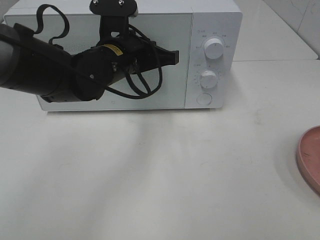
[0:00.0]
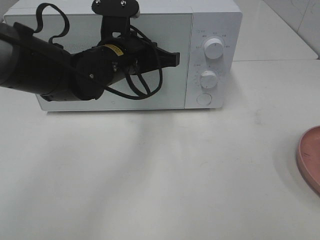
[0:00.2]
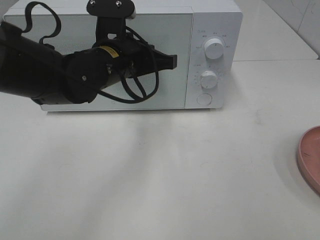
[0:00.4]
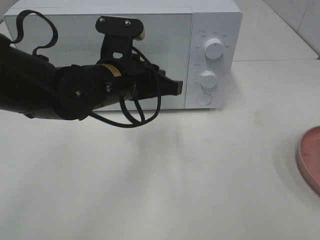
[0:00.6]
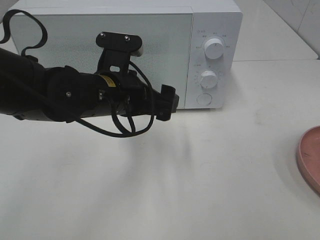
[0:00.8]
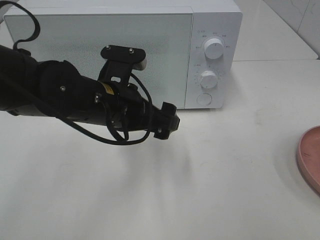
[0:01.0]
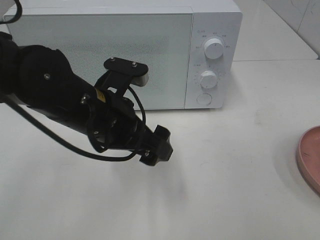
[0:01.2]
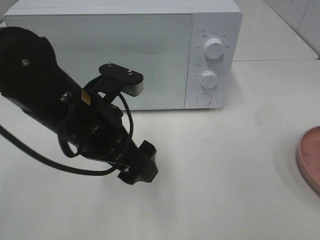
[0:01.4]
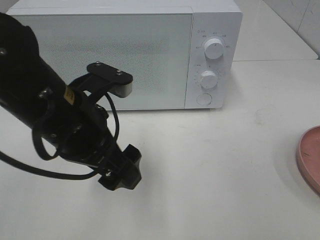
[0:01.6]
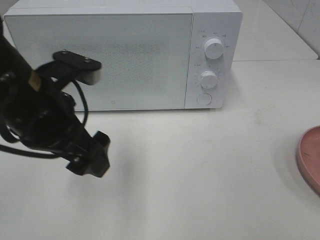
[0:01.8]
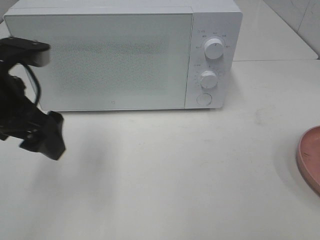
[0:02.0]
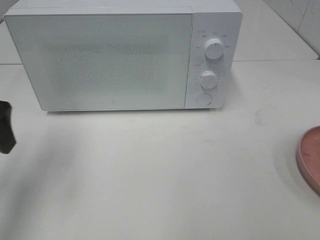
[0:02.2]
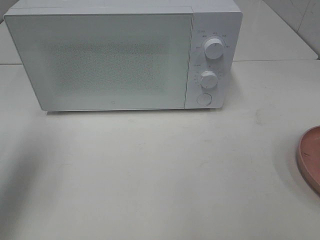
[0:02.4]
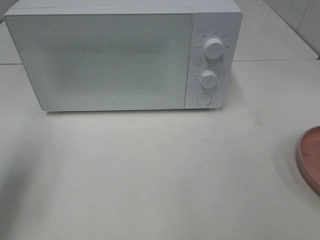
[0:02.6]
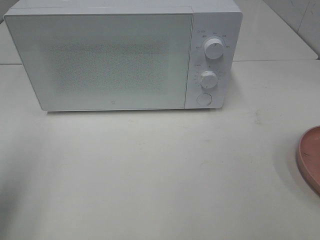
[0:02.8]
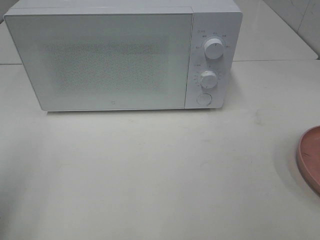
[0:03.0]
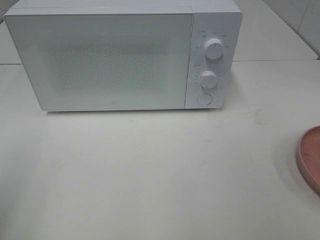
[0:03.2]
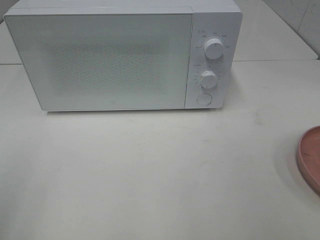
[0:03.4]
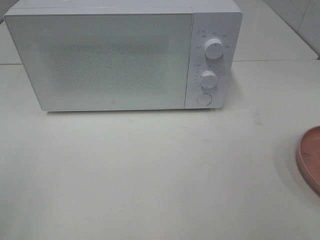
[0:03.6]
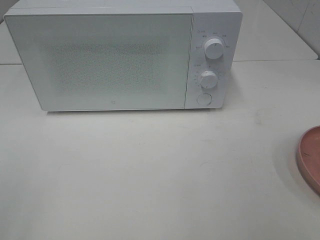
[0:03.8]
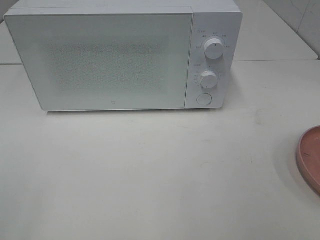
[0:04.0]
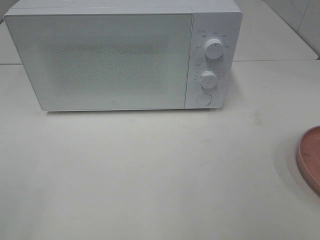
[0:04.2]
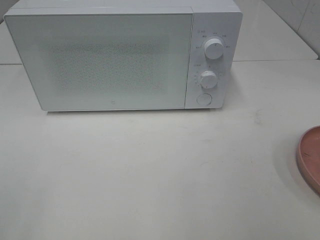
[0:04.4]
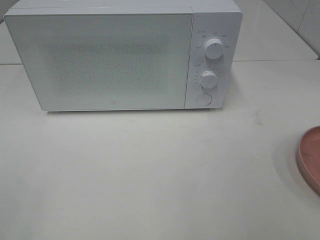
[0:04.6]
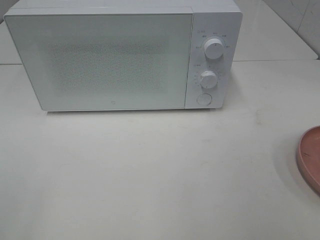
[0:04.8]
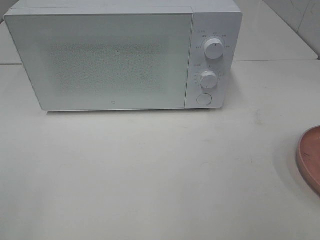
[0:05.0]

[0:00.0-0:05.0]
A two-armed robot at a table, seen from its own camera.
Task of the whole recording: Heat the burger.
0:00.0 to 0:01.6: The left gripper goes about 15 cm backward, and opens.
0:01.6 to 0:03.4: The left gripper moves to the left and backward, about 25 cm.

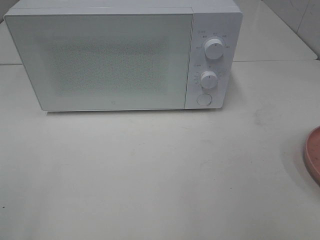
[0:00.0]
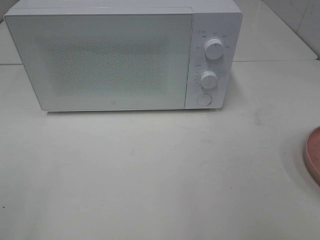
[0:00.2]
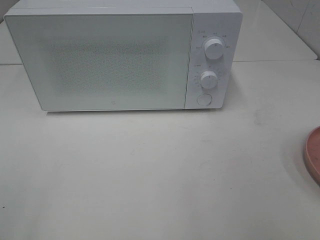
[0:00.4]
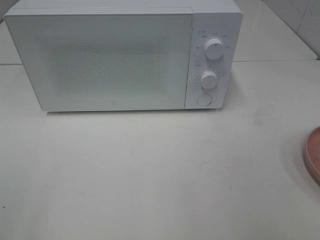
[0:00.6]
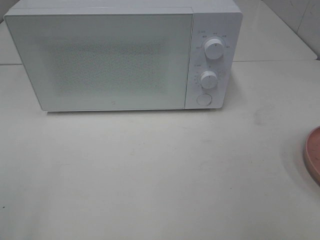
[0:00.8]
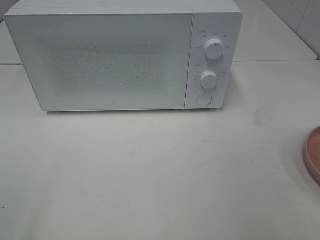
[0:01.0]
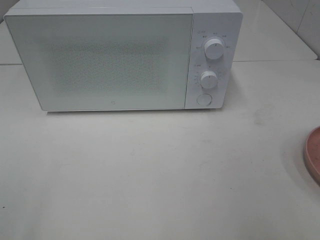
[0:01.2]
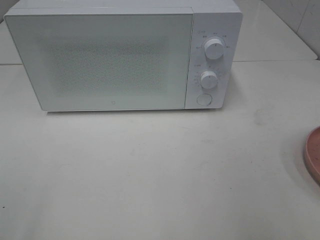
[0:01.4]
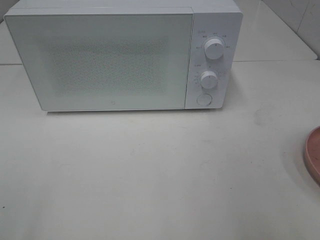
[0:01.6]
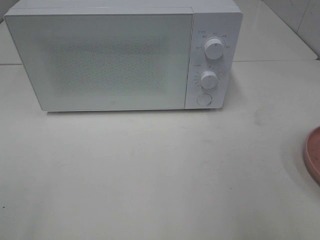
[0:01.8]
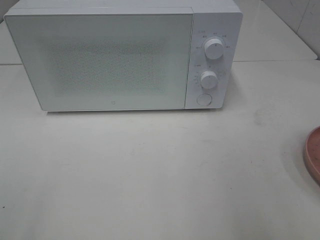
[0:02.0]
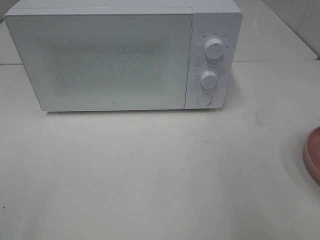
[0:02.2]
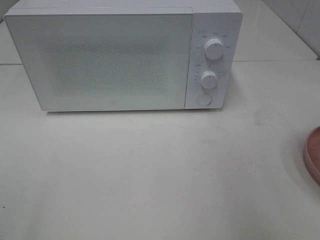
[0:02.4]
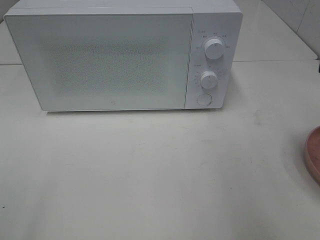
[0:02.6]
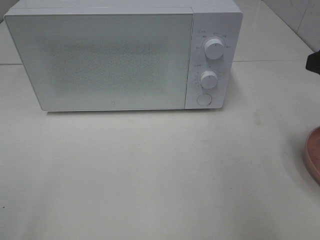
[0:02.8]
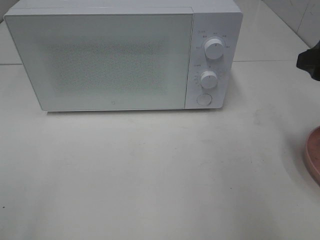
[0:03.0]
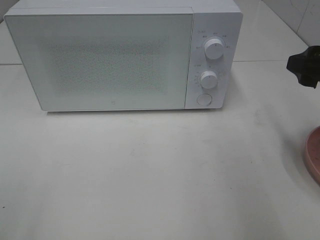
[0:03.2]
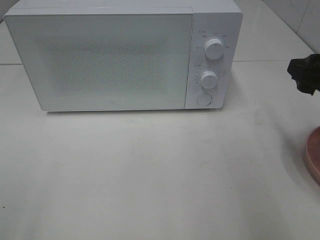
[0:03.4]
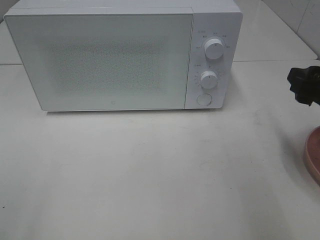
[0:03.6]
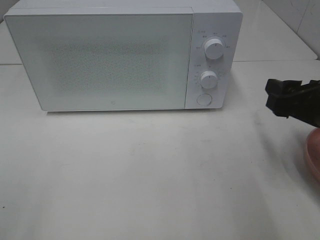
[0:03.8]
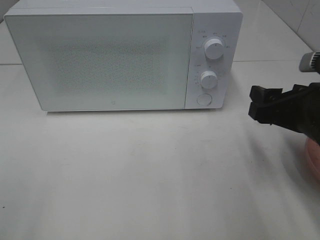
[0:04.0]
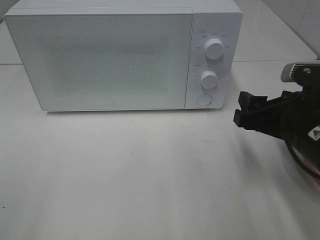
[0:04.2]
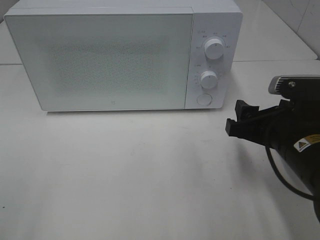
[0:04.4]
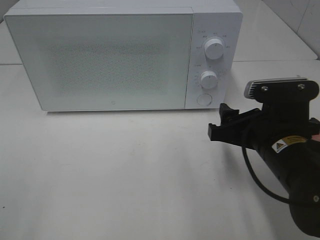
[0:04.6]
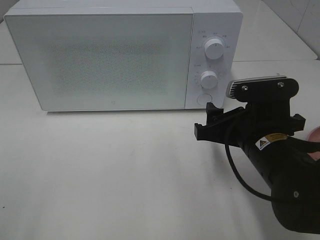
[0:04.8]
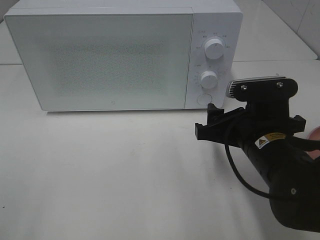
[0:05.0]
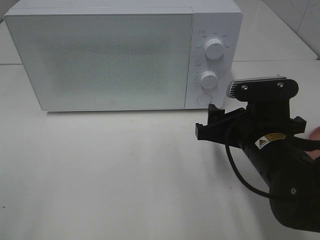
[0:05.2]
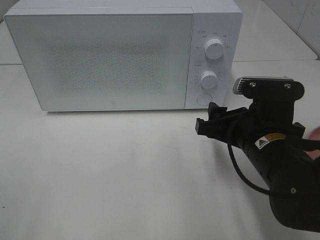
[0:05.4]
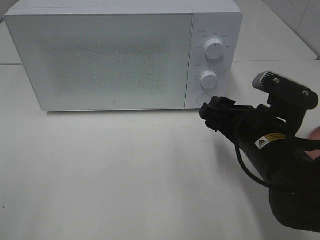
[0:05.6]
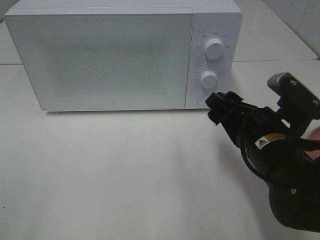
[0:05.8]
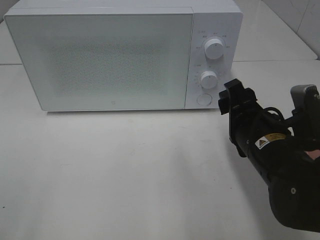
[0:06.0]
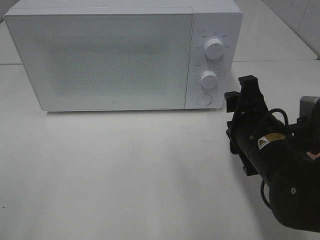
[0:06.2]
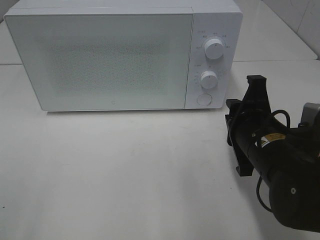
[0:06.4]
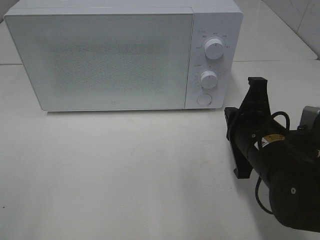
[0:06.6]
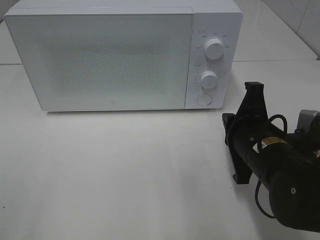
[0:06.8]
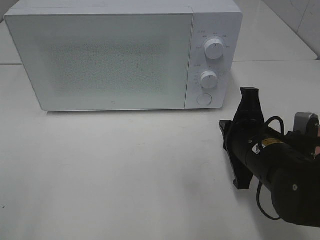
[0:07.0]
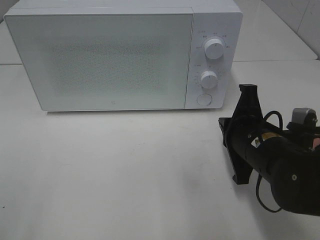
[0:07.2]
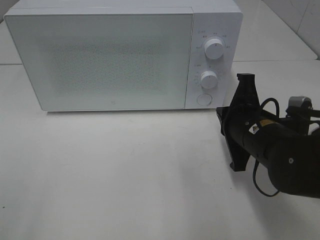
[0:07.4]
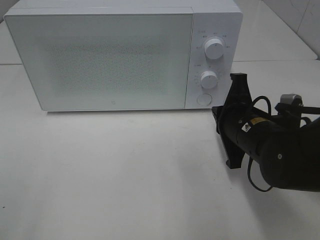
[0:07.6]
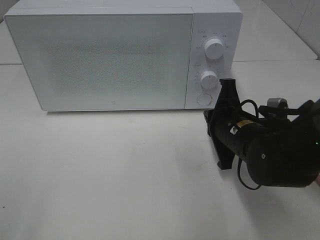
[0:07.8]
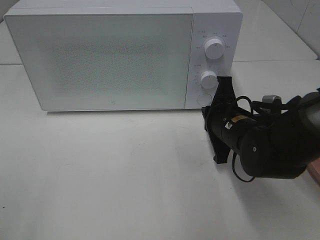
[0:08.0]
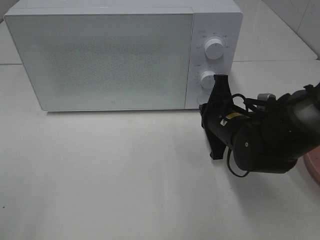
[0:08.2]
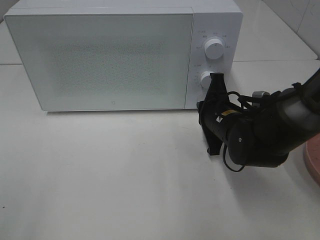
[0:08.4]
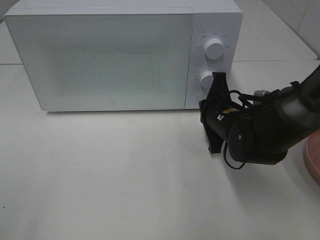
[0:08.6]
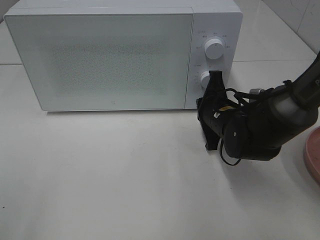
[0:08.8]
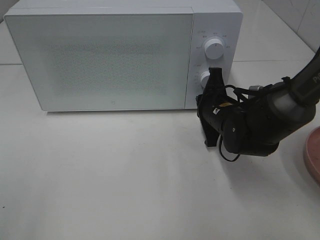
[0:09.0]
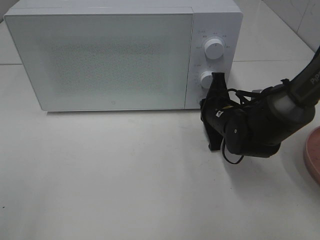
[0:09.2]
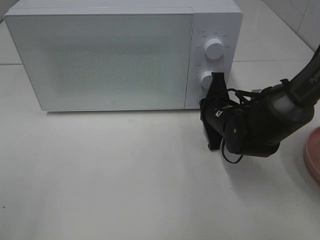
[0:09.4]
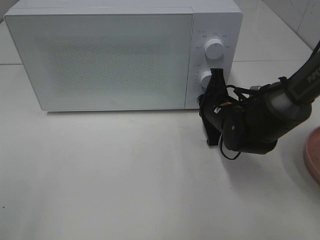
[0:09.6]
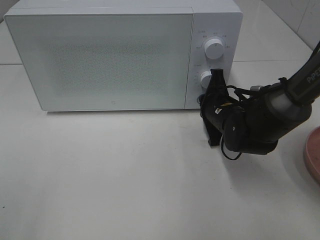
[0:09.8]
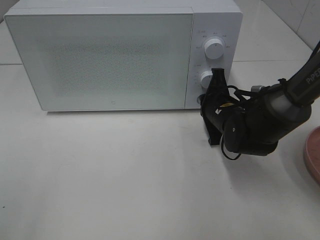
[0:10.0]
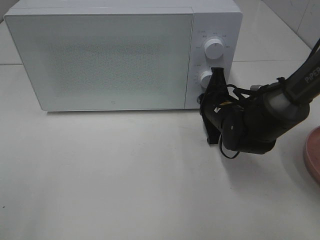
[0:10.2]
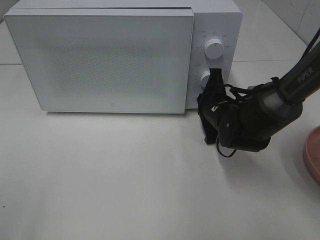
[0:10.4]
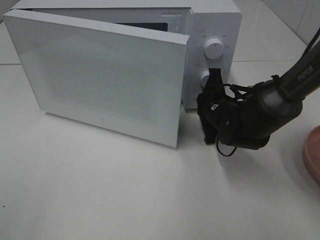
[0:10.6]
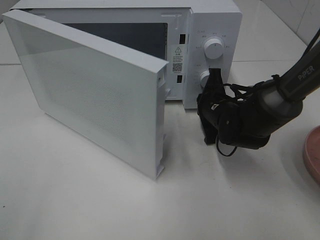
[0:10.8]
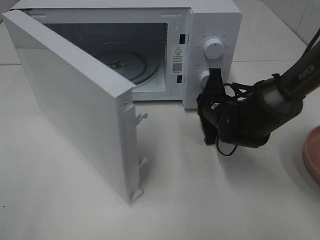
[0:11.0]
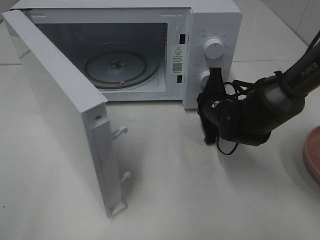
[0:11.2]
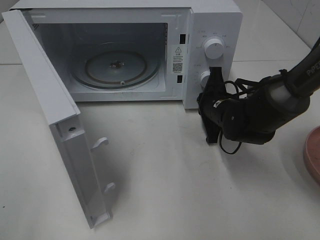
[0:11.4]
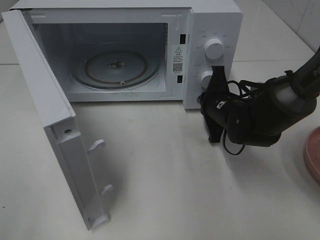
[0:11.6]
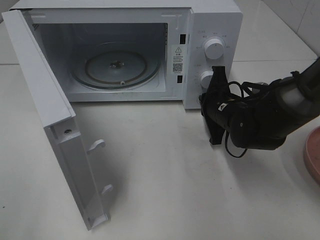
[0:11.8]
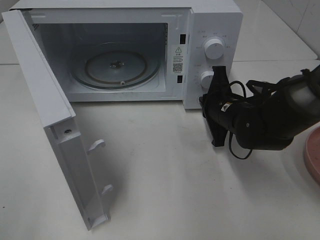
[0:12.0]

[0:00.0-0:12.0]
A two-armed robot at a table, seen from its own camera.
Task of the whole recording: Heat the burger.
0:01.6 to 0:03.0: The right gripper is displaced forward by roughly 15 cm.
0:03.0 to 0:04.4: The right gripper goes roughly 15 cm downward and to the left.
0:06.0 to 0:07.6: The right gripper closes its fingers.
0:07.6 to 0:09.0: The right gripper is displaced forward by some 10 cm.
0:09.0 to 0:10.4: The grippers make only small movements.

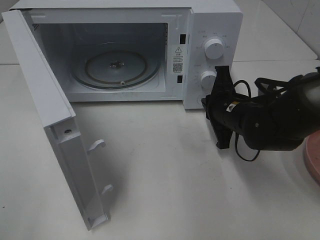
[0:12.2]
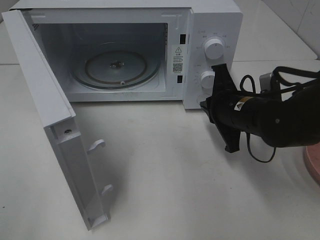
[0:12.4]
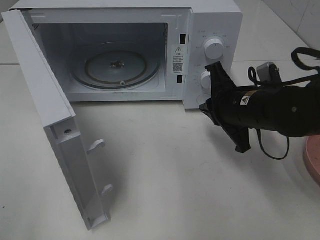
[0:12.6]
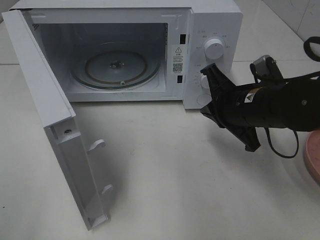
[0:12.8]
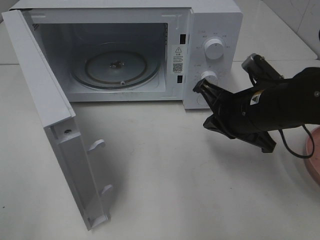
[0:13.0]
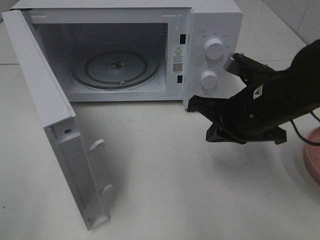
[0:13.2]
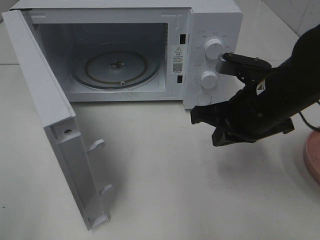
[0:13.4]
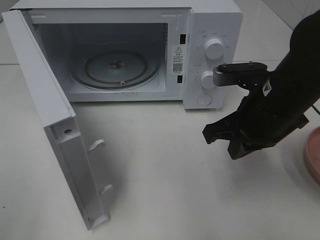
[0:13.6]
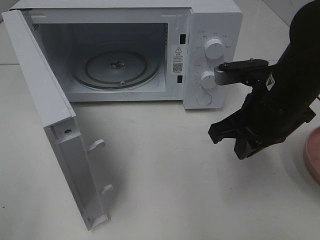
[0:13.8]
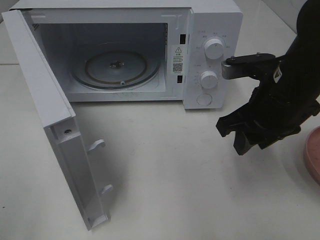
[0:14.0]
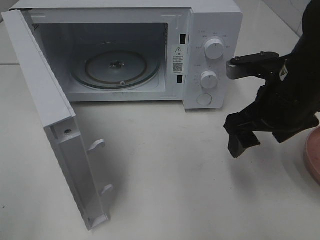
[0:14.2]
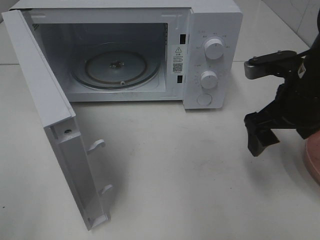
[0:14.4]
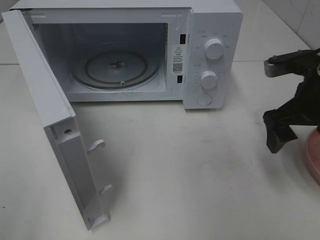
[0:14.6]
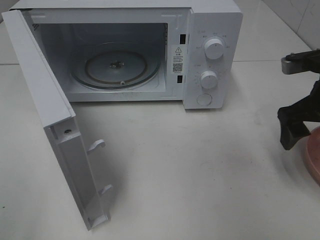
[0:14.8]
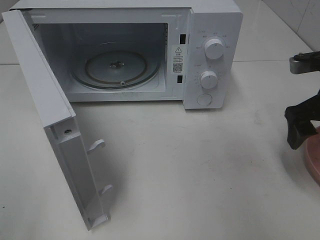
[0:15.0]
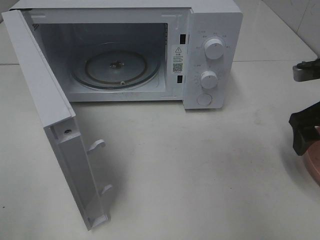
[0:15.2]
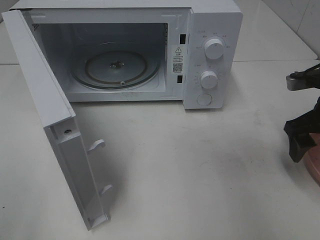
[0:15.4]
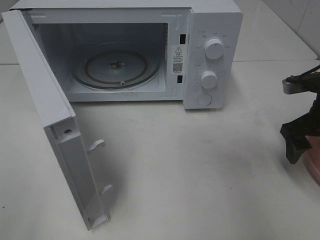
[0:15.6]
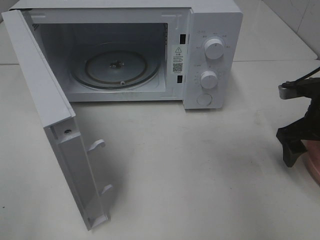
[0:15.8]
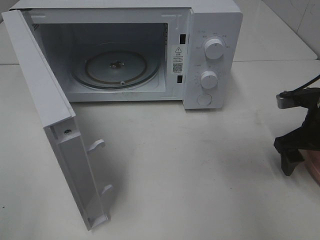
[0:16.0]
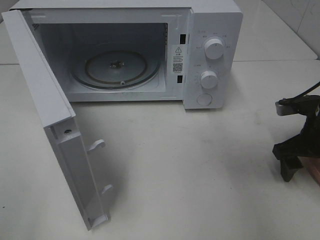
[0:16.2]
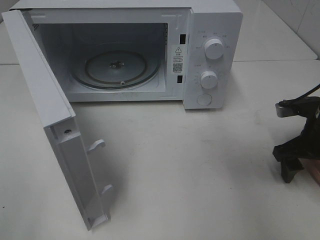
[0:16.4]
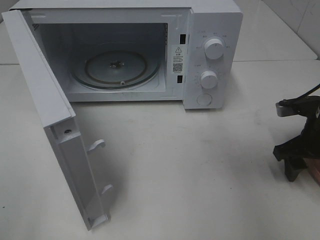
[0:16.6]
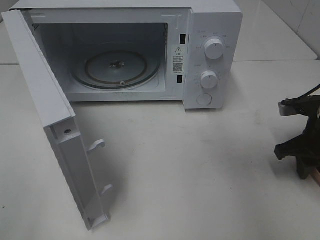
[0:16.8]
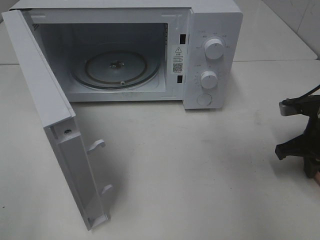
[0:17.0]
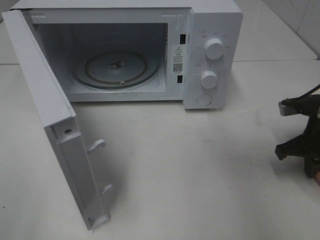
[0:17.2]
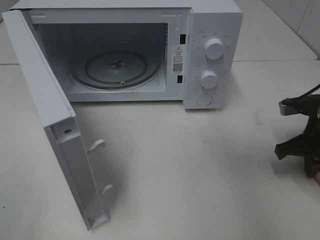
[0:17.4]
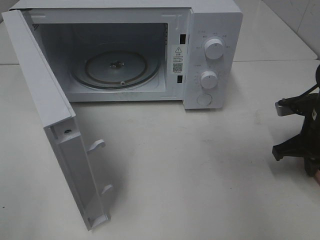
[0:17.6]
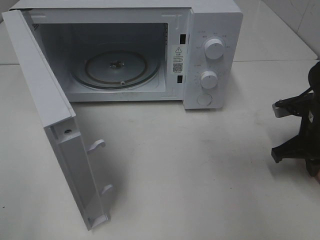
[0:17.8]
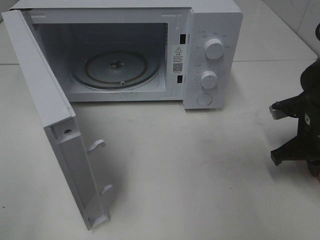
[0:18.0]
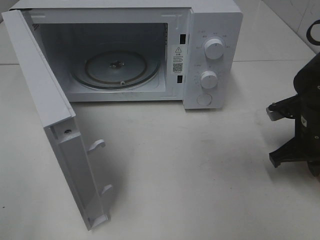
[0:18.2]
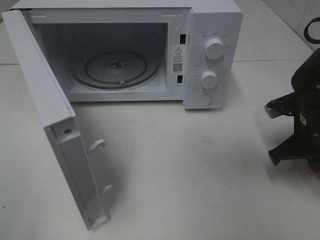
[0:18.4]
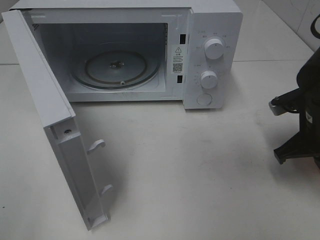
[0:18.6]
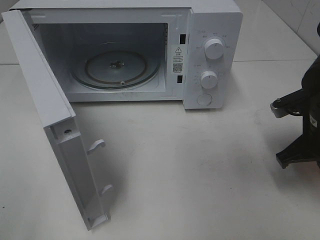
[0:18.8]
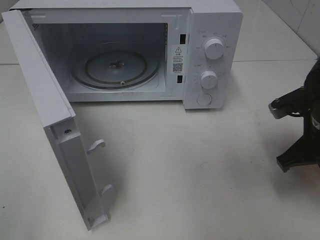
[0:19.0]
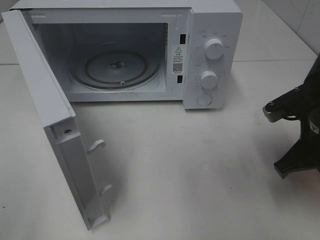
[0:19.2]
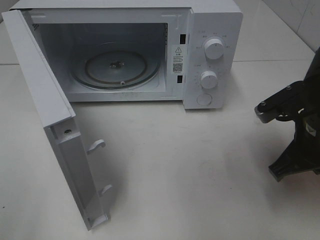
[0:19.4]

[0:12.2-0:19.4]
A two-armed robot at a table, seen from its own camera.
Task of the whole recording: Heat the burger.
Step, 0:12.4 to 0:17.6: Right hand: grab the plate with the hamburger.
0:12.2 to 0:13.6: The right gripper is displaced upward and backward by some 10 cm.
0:13.6 to 0:15.0: The right gripper goes approximately 10 cm to the right, and opens.
0:15.0 to 0:16.6: The right gripper moves downward, approximately 10 cm.
0:16.6 to 0:18.0: The right gripper closes.
0:18.0 to 0:19.4: The right gripper goes roughly 10 cm backward, to the left and upward.
